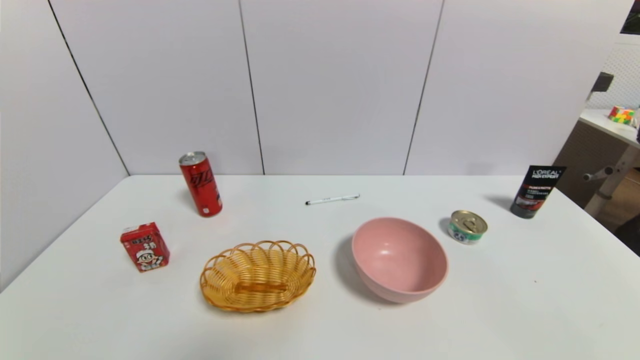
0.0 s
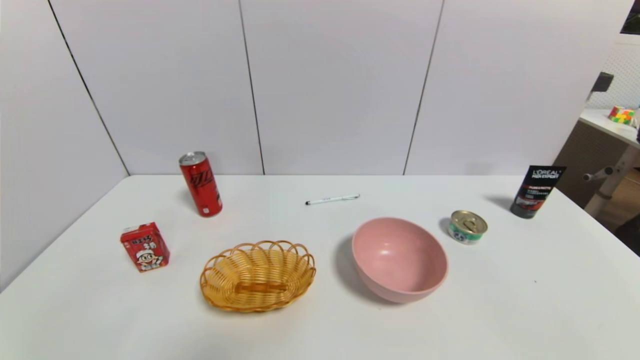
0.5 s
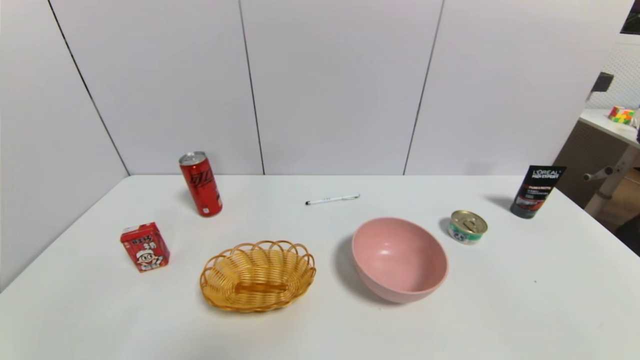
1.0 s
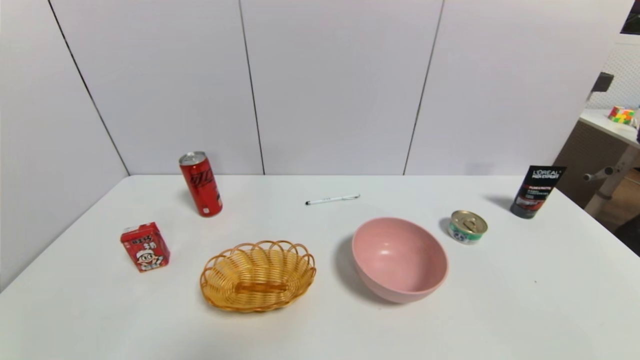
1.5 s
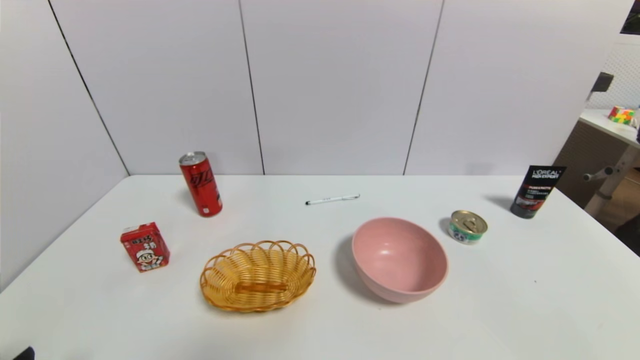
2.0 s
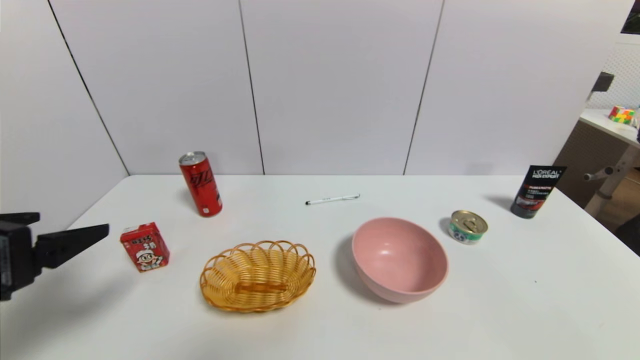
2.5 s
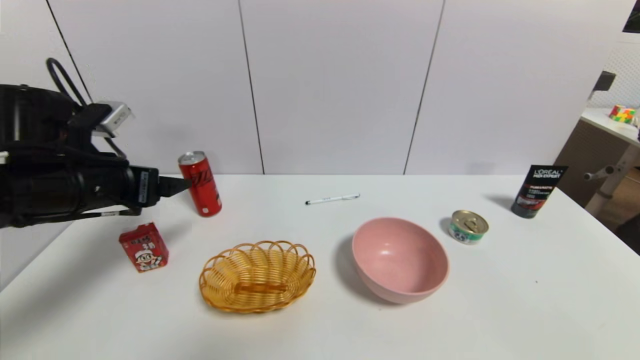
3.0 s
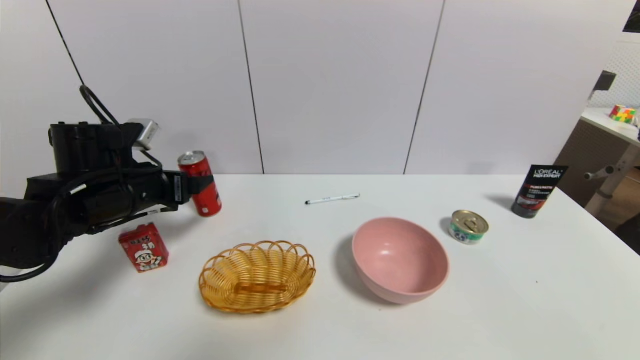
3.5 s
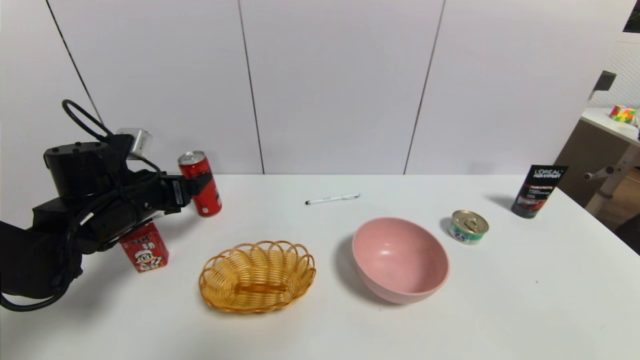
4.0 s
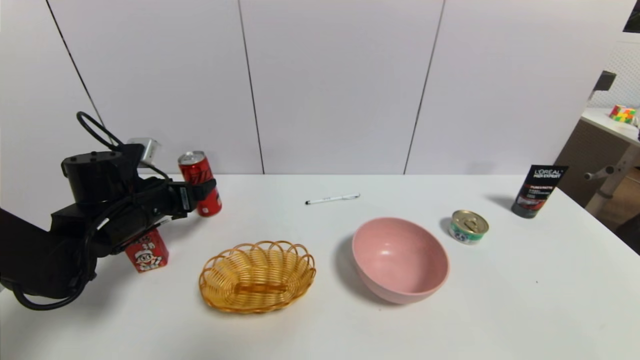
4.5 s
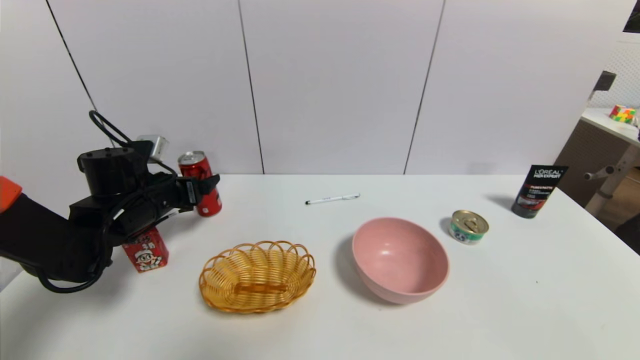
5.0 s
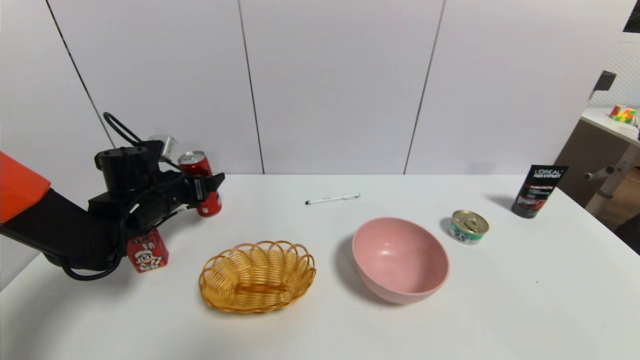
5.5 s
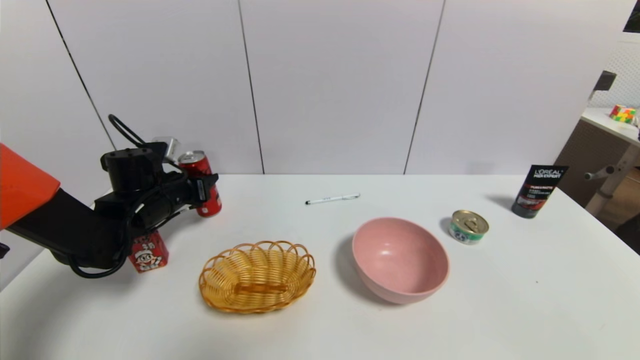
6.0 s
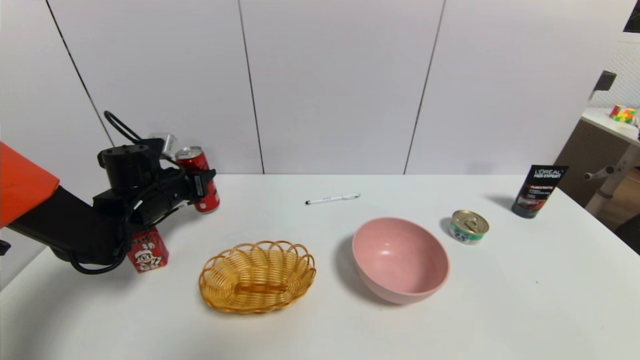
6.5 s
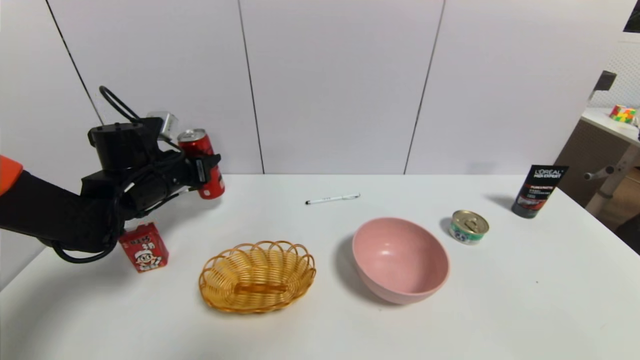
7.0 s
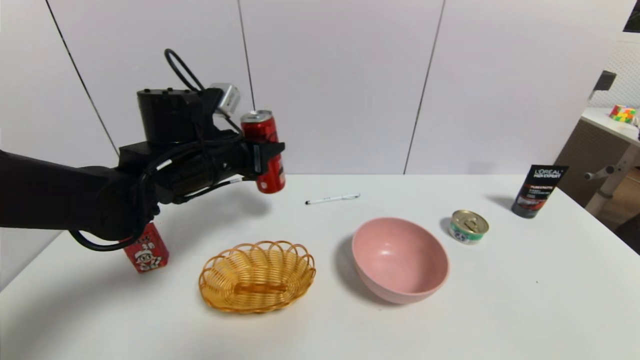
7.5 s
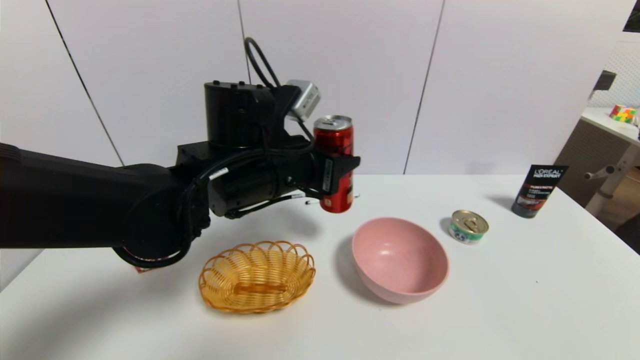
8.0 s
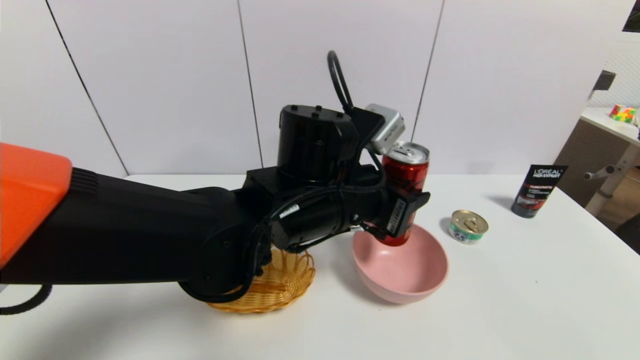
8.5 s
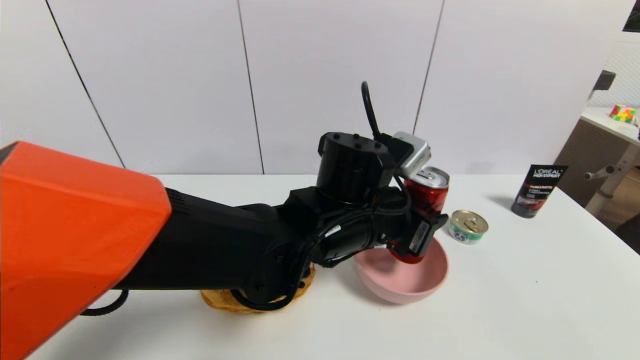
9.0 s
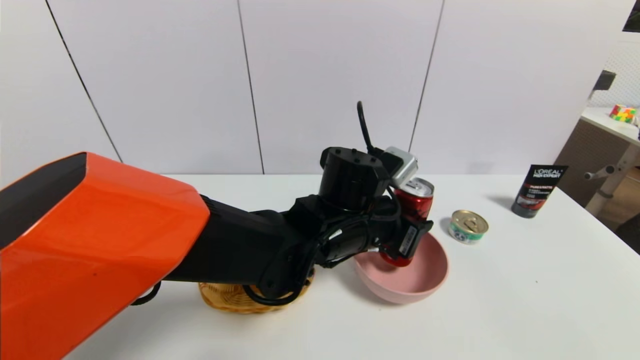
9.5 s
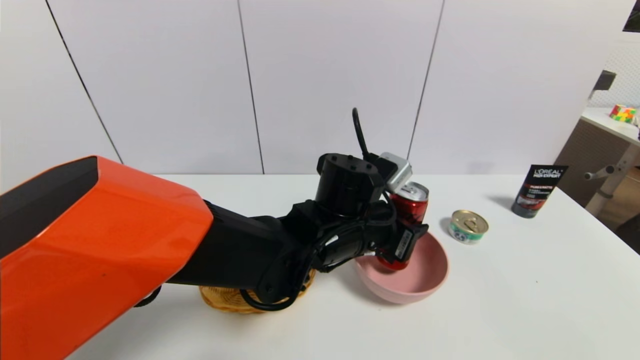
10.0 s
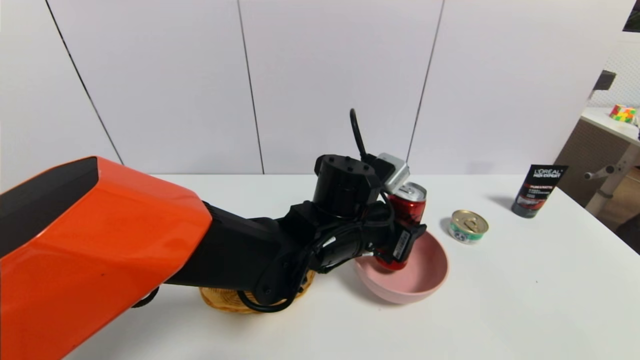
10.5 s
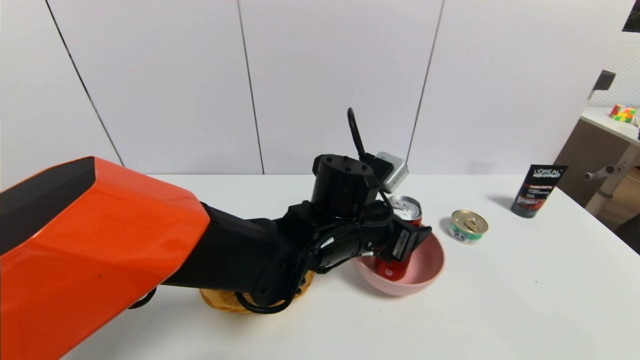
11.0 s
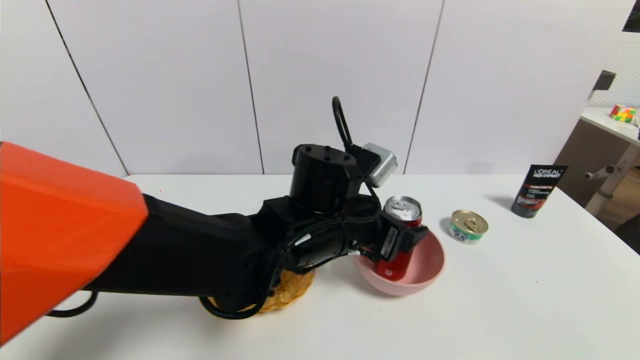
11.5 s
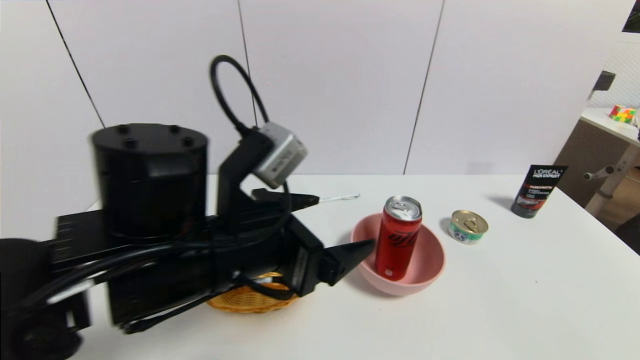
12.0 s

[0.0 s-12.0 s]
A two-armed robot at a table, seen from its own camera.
Task of the whole recording: use a gripper to pick the target object and place on the pink bowl.
Step, 0.0 to 5.5 s: Grasp the coke with the left gripper.
Step, 6.0 to 11.0 s: Place the coke on the pink bowl with the left gripper.
2.0 to 4.0 s: The left gripper shifts about 30 cm forward.
4.0 to 6.0 s: The left gripper moves forward, roughly 5 cm, and closes up.
6.0 to 8.0 s: The left gripper shifts roughly 25 cm to the right, upward and backward.
8.0 to 10.0 s: The left gripper is displaced to the right and downward by some 10 cm.
10.0 to 12.0 s: The left gripper shifts some 20 cm to the left, backward and upward, and opens its fingers.

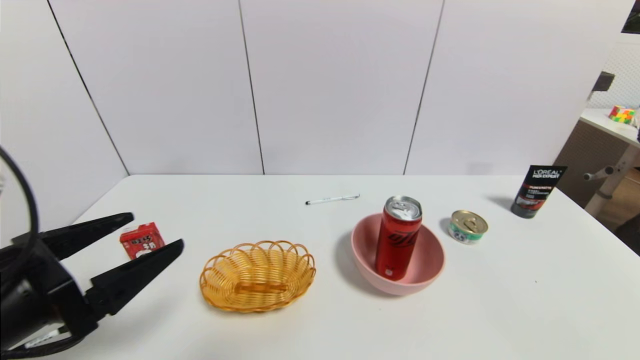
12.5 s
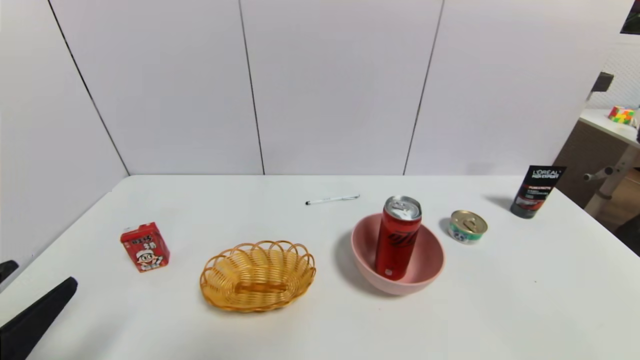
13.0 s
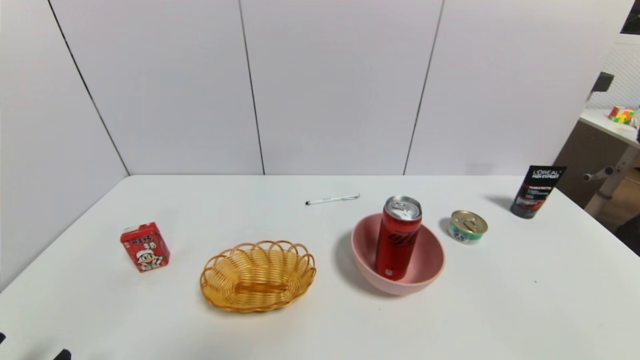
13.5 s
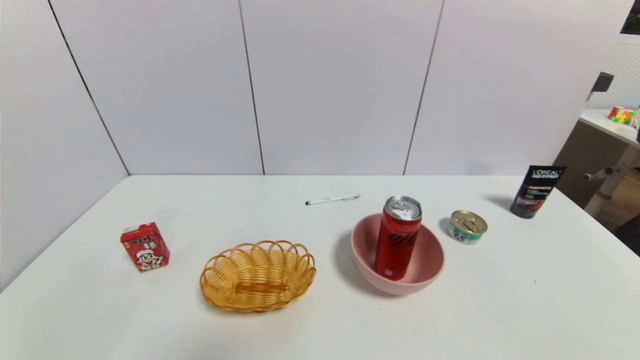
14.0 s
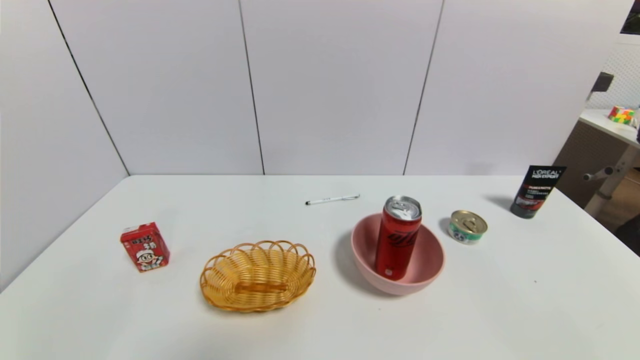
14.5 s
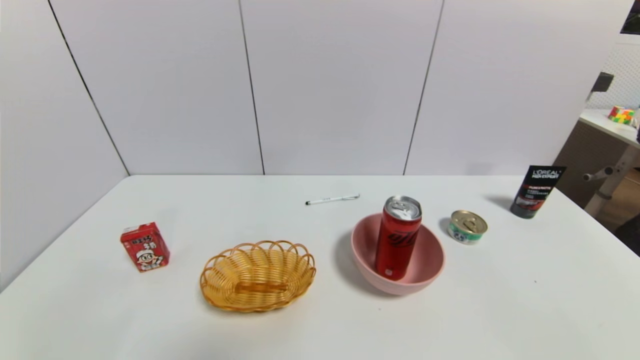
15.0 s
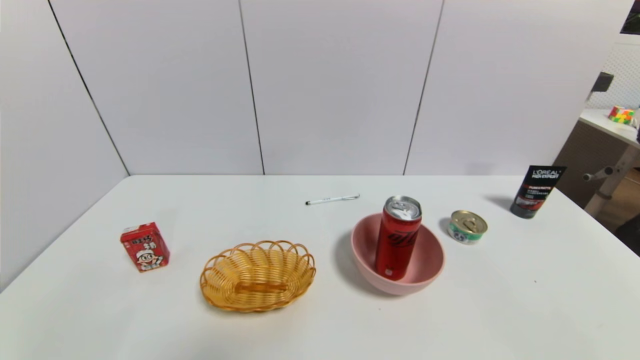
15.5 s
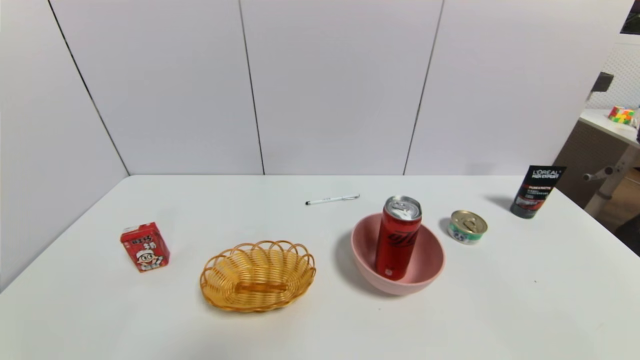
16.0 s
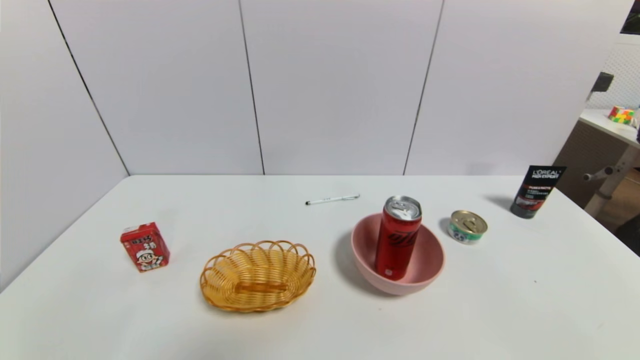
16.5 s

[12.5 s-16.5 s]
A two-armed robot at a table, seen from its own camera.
Task of the whole recording: use a gripper to pick the target object and place on the pink bowl.
12.5 to 14.5 s: The left gripper goes some 20 cm downward and backward.
